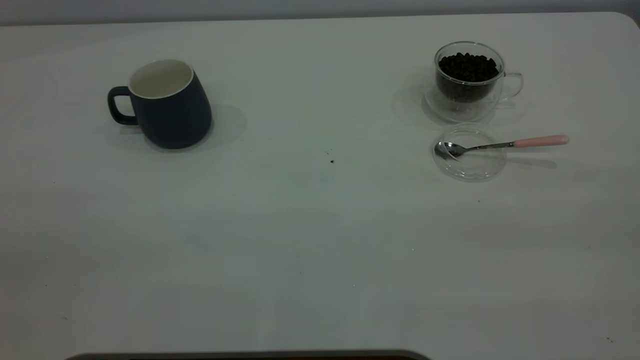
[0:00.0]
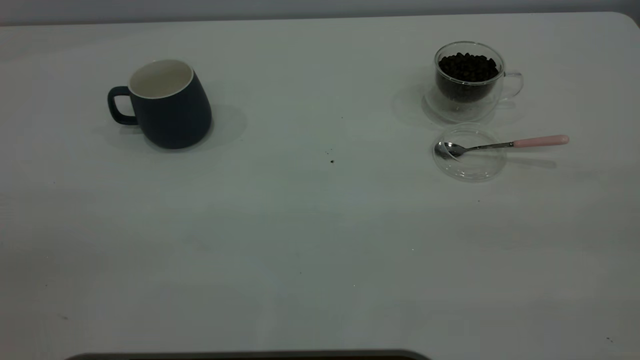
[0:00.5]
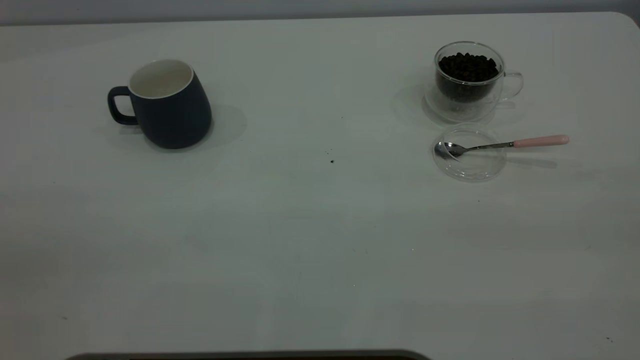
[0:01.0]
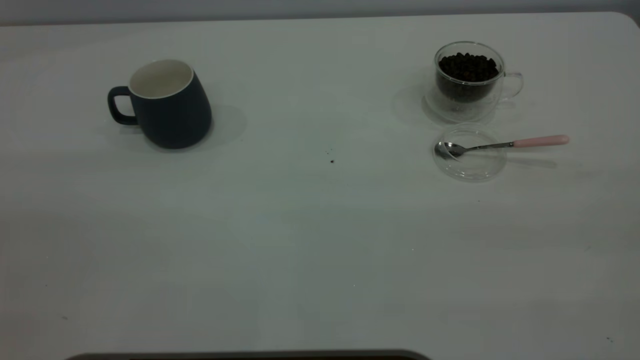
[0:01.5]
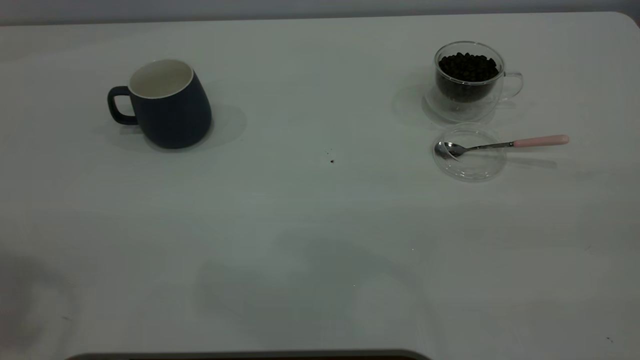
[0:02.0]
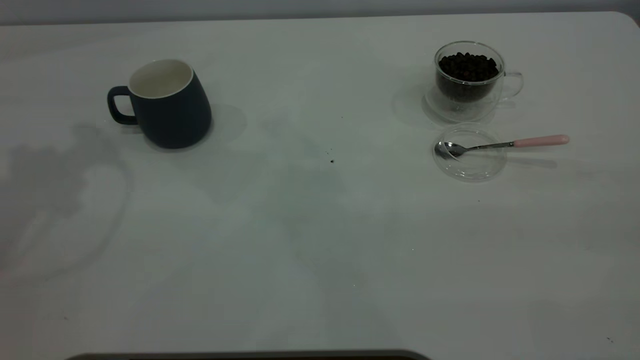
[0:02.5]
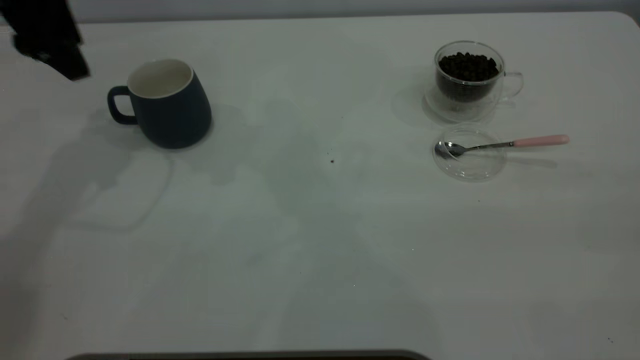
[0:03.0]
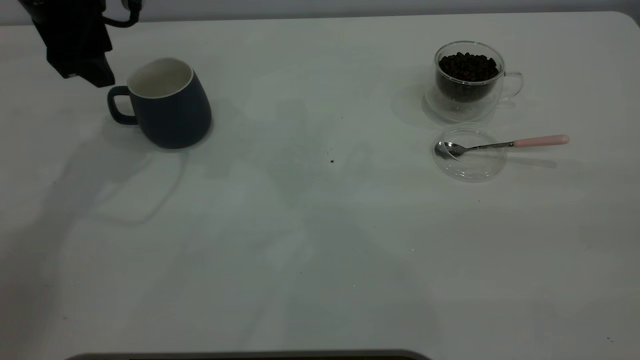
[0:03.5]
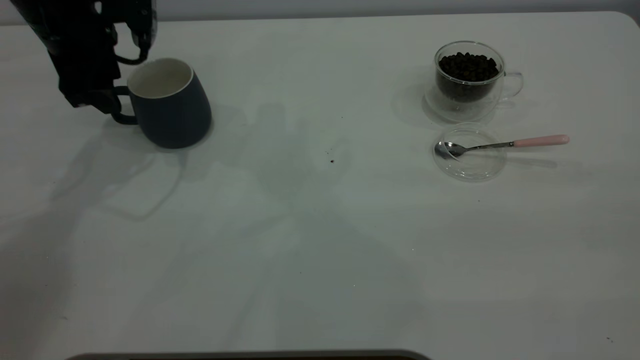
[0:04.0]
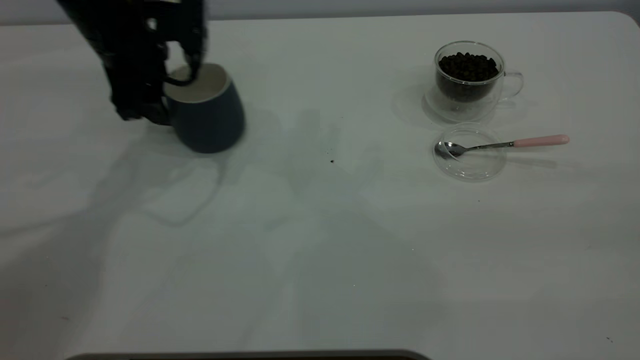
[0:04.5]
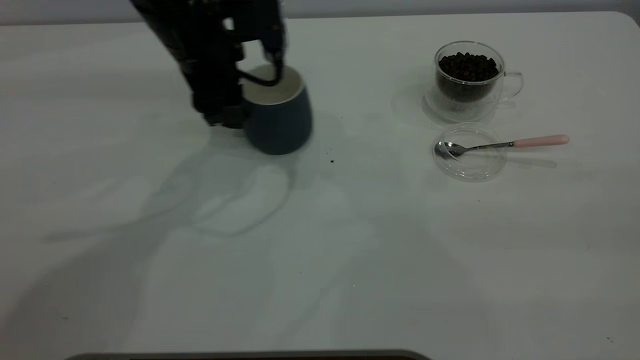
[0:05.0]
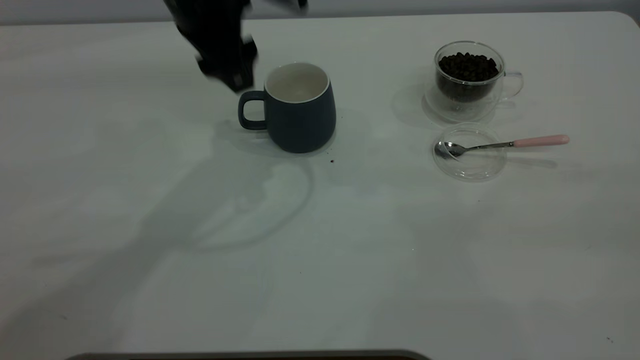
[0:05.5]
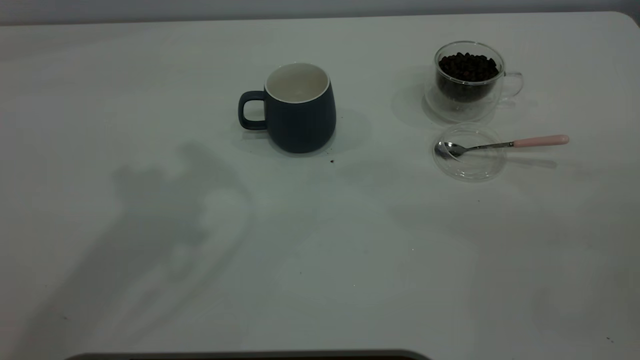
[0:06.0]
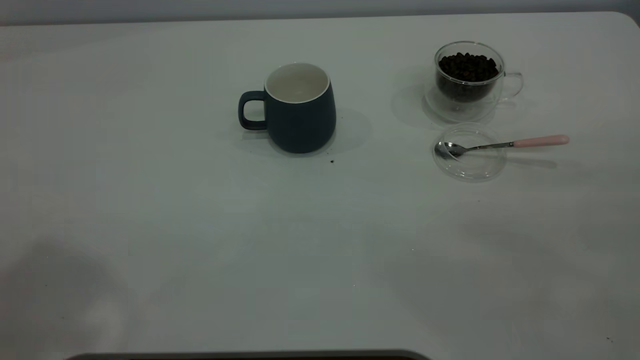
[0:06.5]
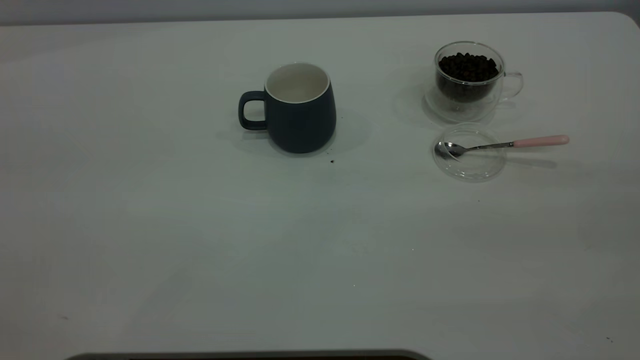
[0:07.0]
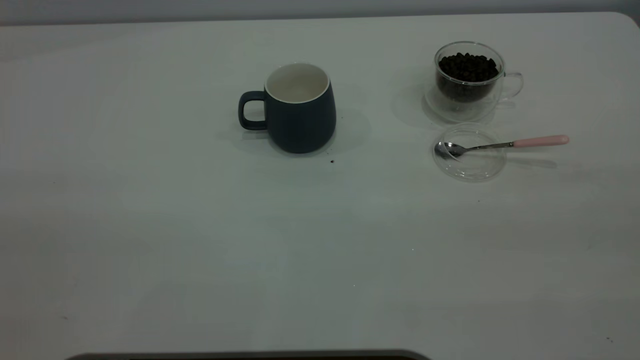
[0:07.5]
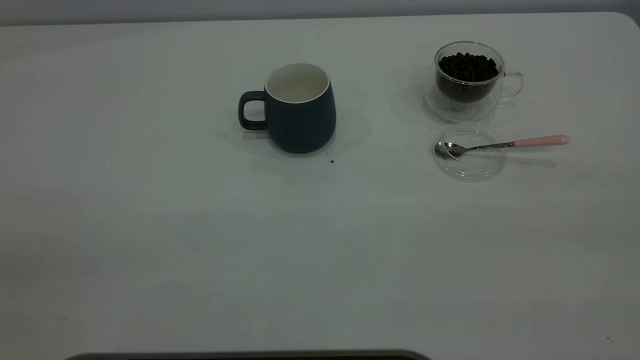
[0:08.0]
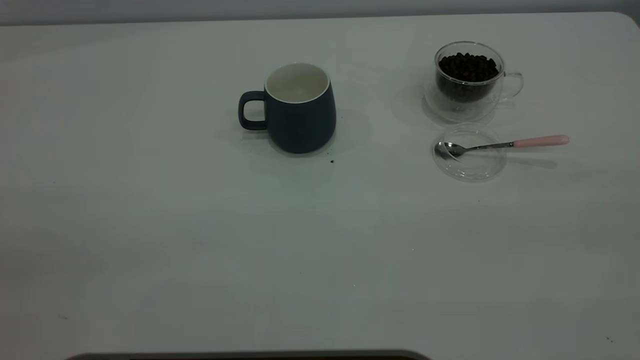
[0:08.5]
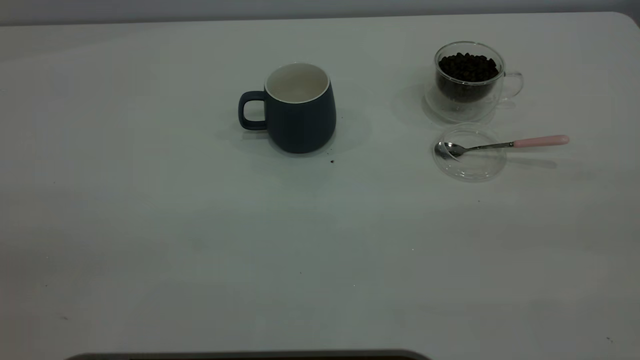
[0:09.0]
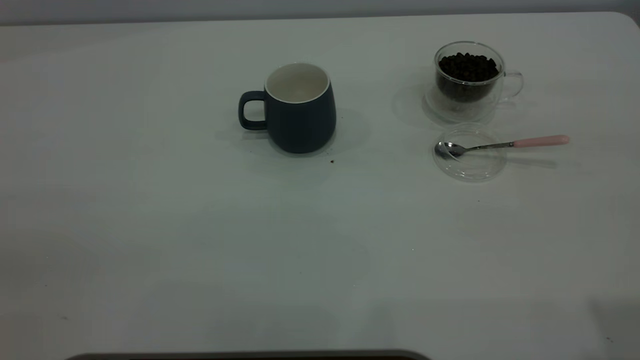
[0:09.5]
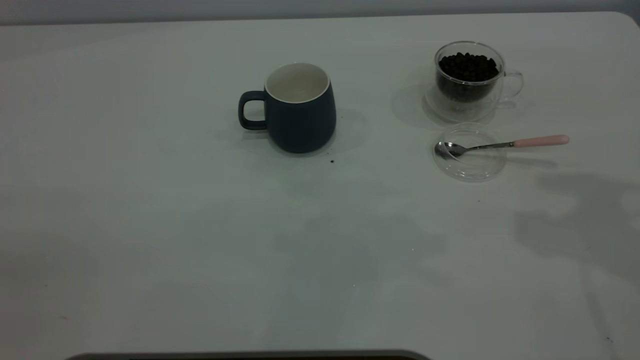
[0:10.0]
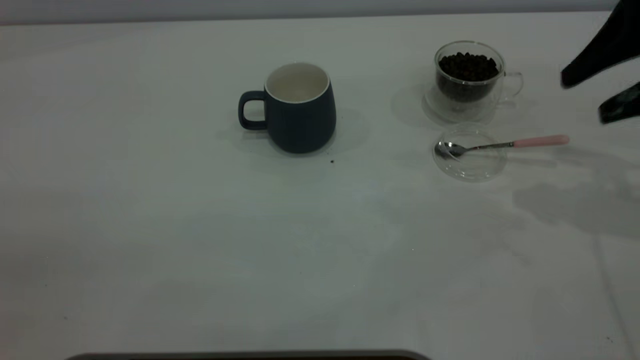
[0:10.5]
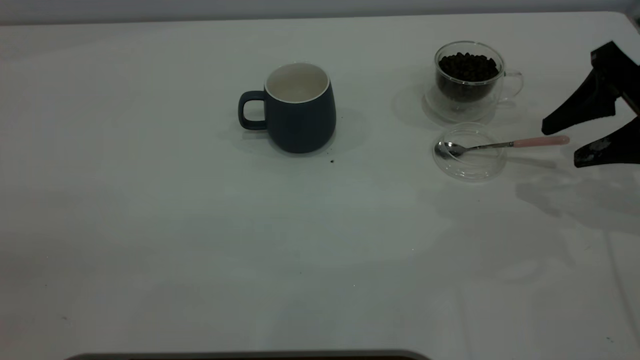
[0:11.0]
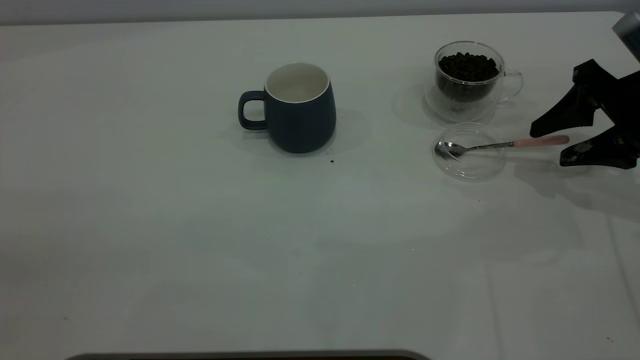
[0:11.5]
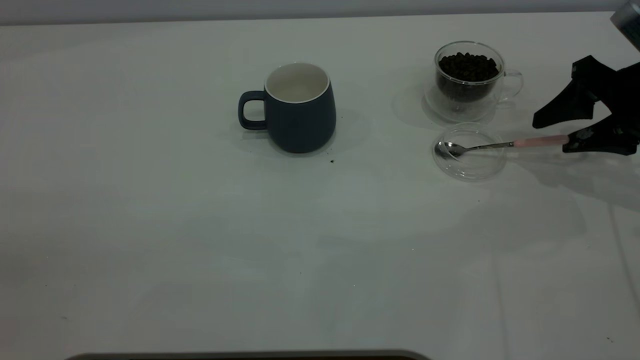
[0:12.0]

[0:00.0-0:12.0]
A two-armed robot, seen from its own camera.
Task of the whole recording: the left gripper place the grey cup in the center of the table, the right gripper take the pink spoon from the cup lid and scoop out the coffee beans from the coffee cup and put them into the grey cup, the right gripper put the spoon back into the cup lid.
Step, 0:00.0 to 0:05.0: Move the cup to the center of view.
0:02.0 to 0:04.0: The left gripper moves downward and forward, roughly 35 cm.
0:04.0 to 0:06.0: The left gripper goes roughly 30 cm upward and backward.
0:10.0 to 0:12.0: The right gripper shifts roughly 20 cm downward.

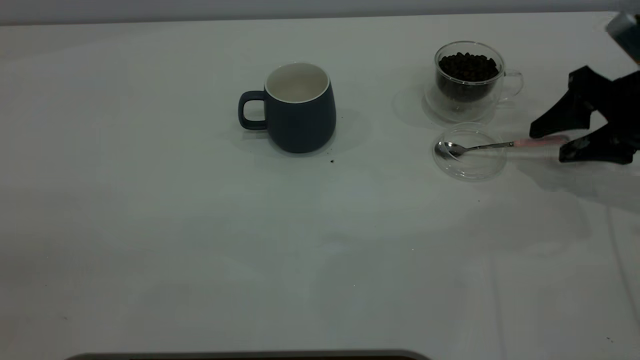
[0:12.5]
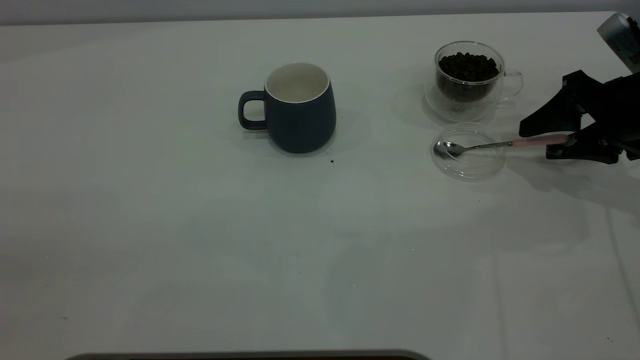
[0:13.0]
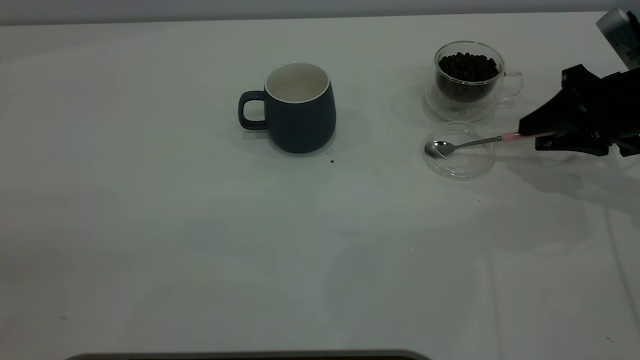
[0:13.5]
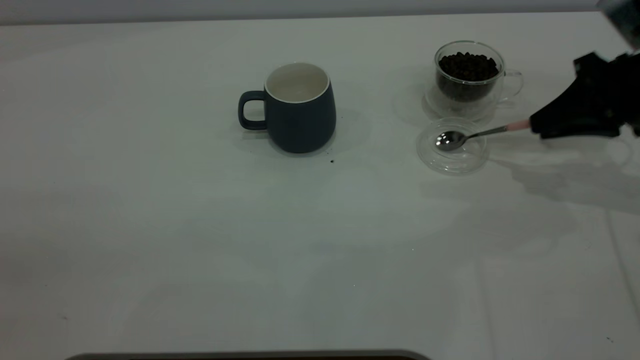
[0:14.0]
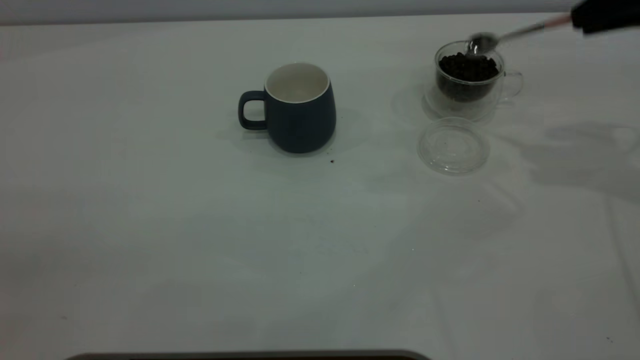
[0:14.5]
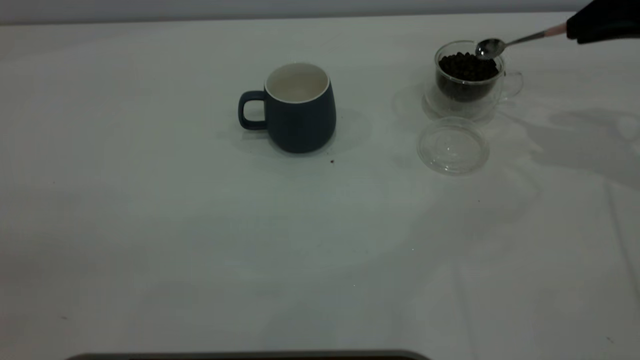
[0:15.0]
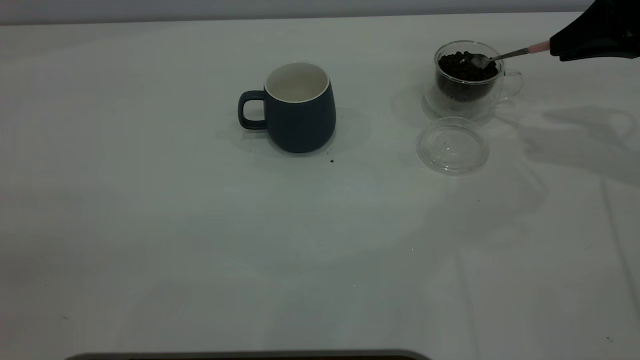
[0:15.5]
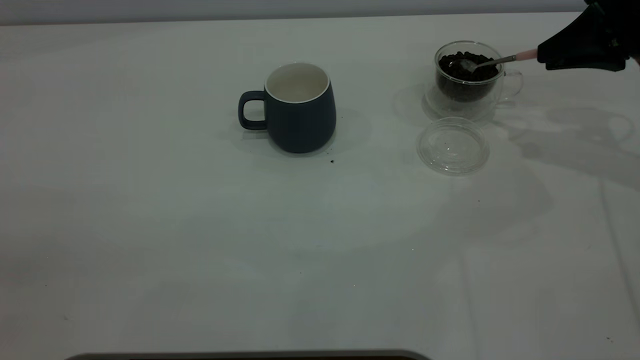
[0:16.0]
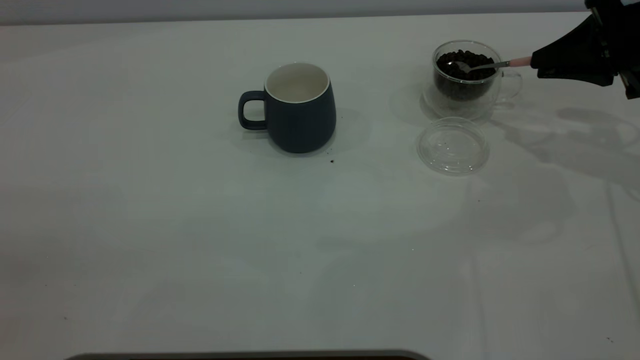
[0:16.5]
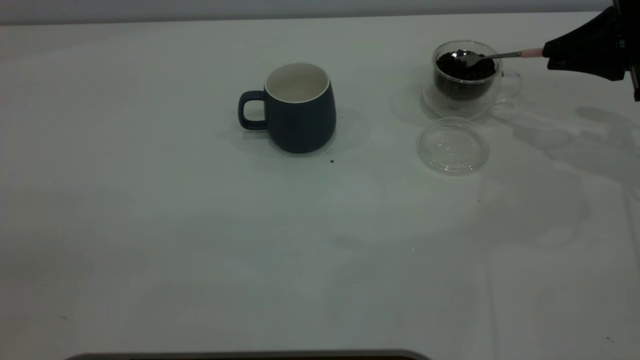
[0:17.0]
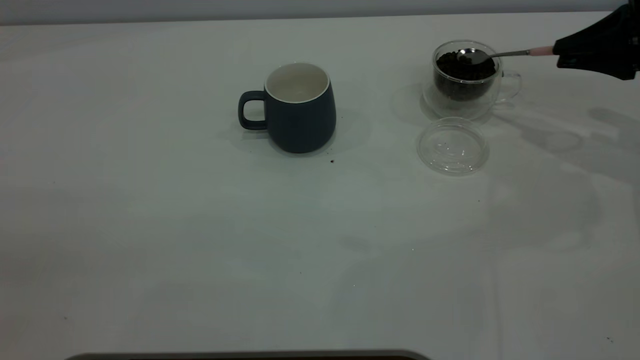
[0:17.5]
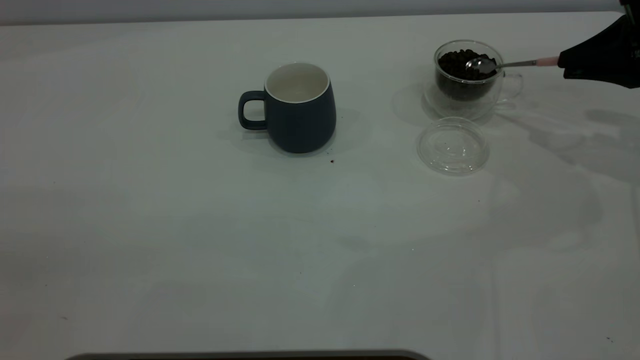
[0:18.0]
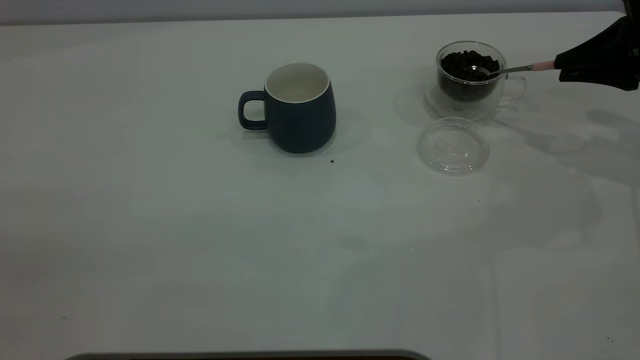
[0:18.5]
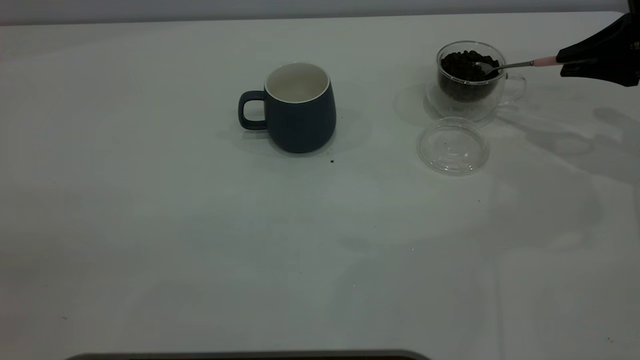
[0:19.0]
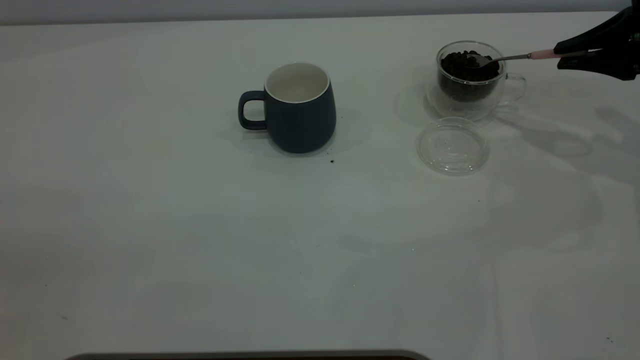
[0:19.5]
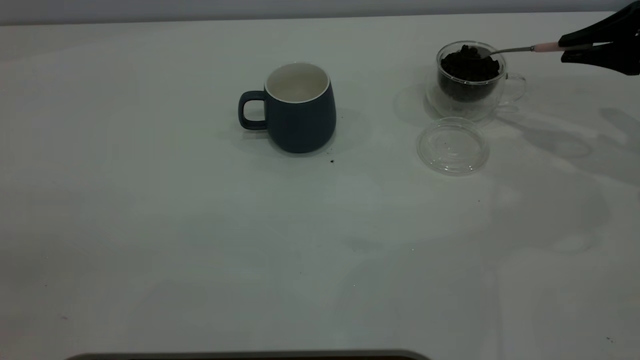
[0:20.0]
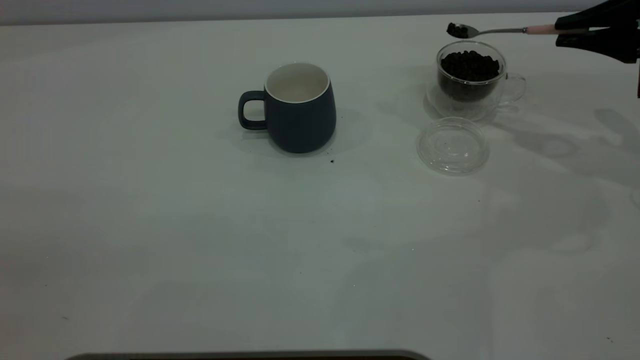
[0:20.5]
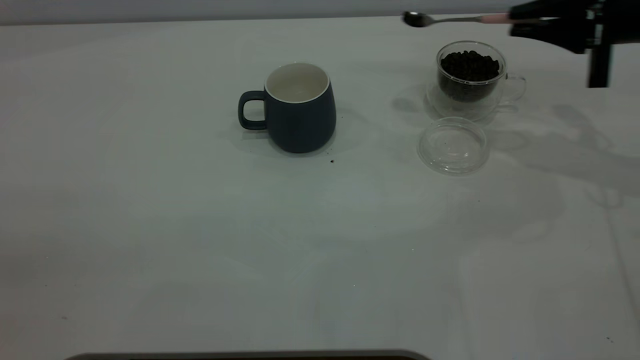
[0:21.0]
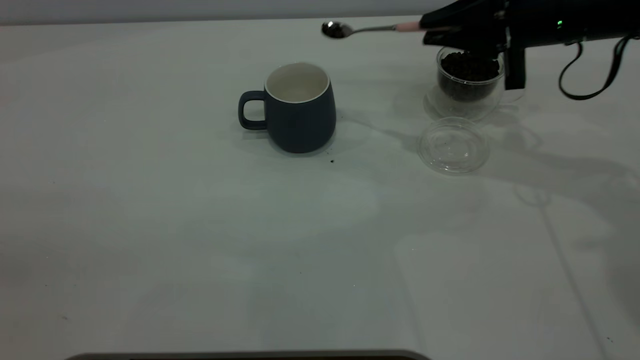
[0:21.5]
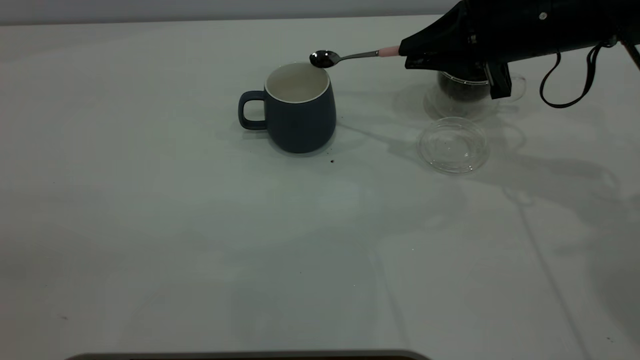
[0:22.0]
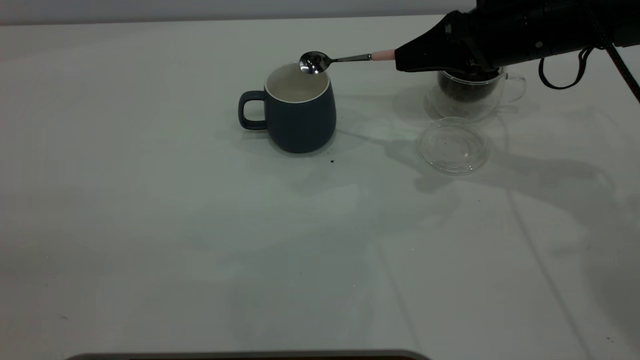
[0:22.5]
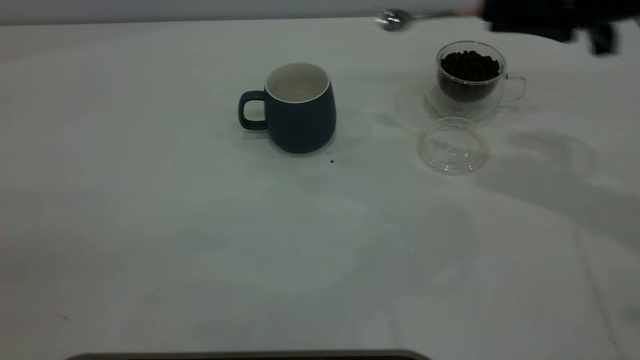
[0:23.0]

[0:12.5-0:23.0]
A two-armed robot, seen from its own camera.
Task of the whole recording: the left gripper place the grey cup in the center of the table, the right gripper take the pink spoon from the cup lid and scoop out the coffee beans from the coffee cup and put them into the grey cup, the right gripper put the spoon back into the cup lid.
Step, 0:14.5 to 0:22.5: Scoop a spoonful of beans into the cup.
0:12.5 to 0:14.5: The right gripper moves upward, about 15 cm, and closes.
0:14.5 to 0:16.5: The right gripper moves downward, approximately 10 cm.
0:16.5 to 0:19.0: The grippers make only small movements.
0:19.0 to 0:21.0: The right gripper heads to the left, covering roughly 5 cm.
0:21.0 to 0:23.0: The right gripper goes approximately 5 cm backward, and travels to the left and back again, roughly 10 cm each way.
